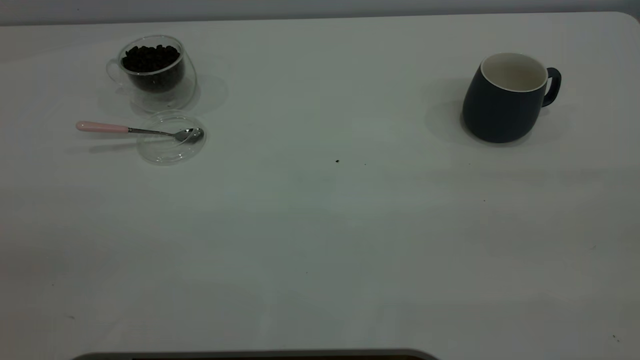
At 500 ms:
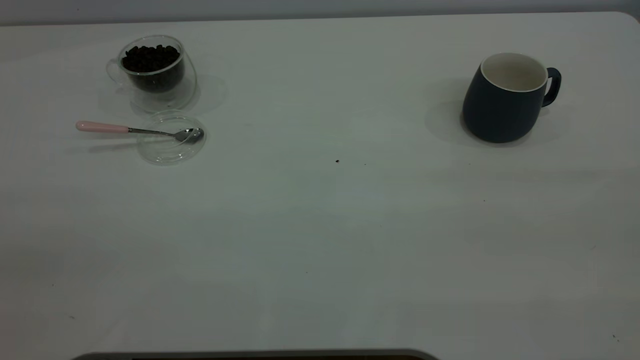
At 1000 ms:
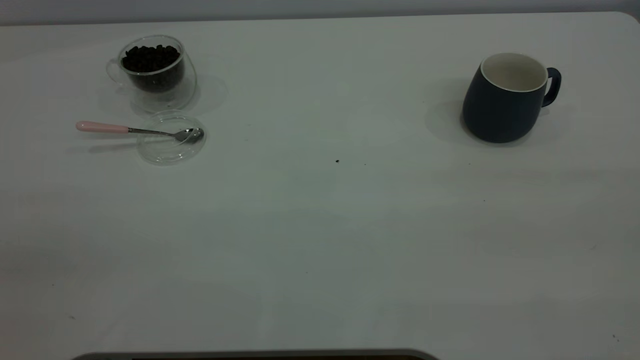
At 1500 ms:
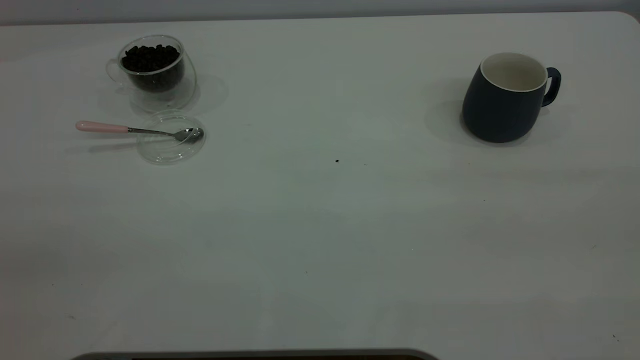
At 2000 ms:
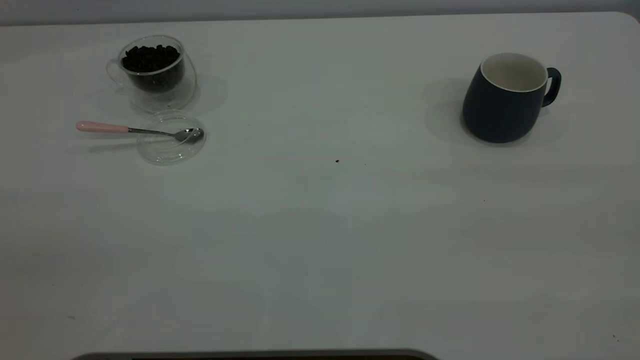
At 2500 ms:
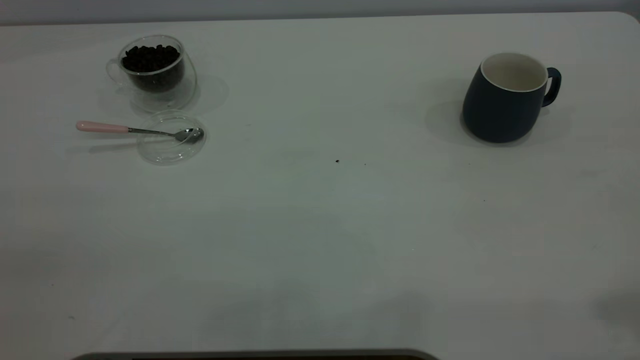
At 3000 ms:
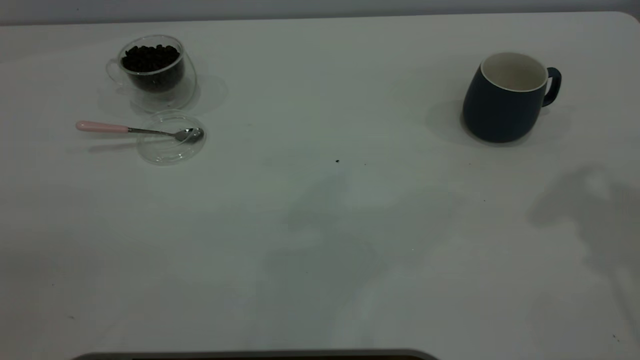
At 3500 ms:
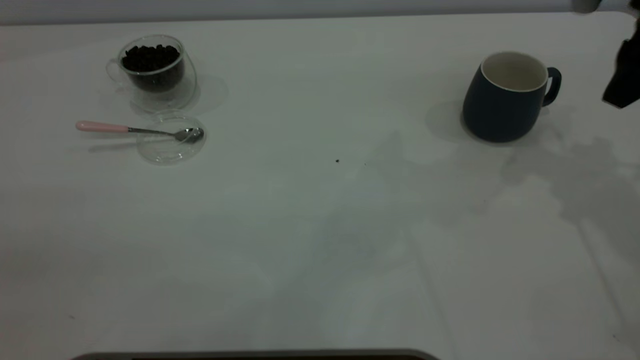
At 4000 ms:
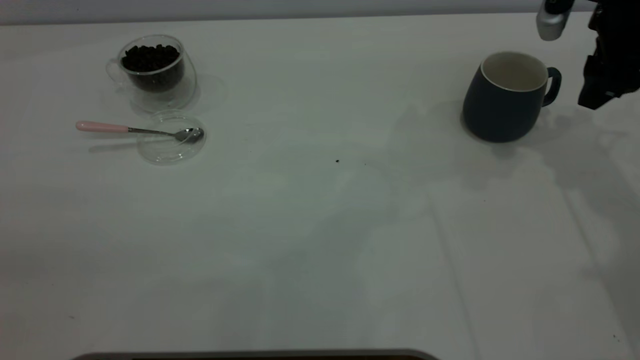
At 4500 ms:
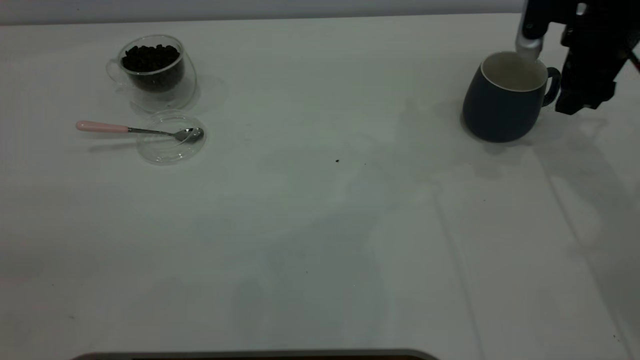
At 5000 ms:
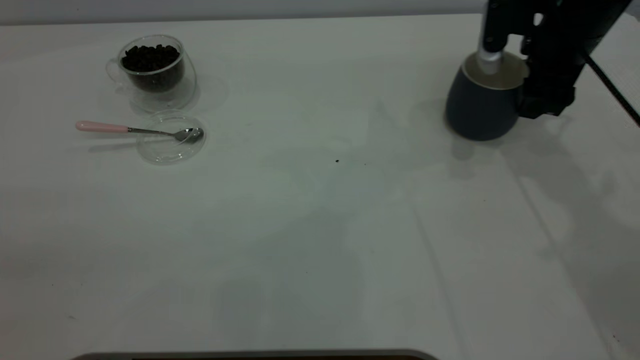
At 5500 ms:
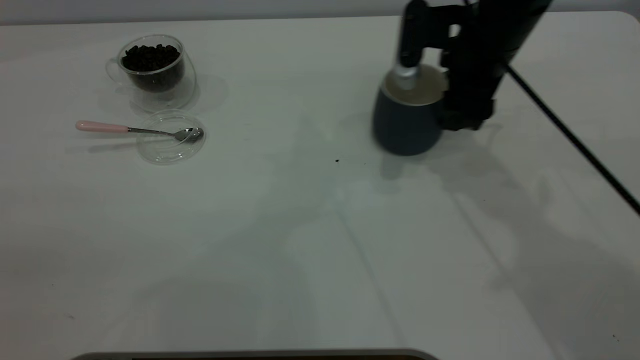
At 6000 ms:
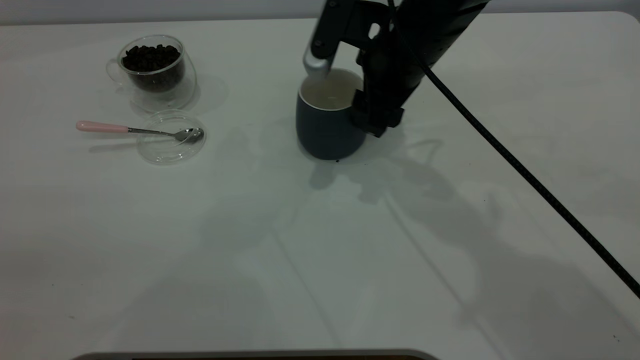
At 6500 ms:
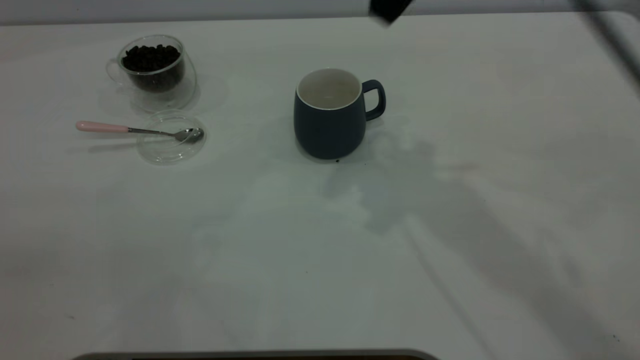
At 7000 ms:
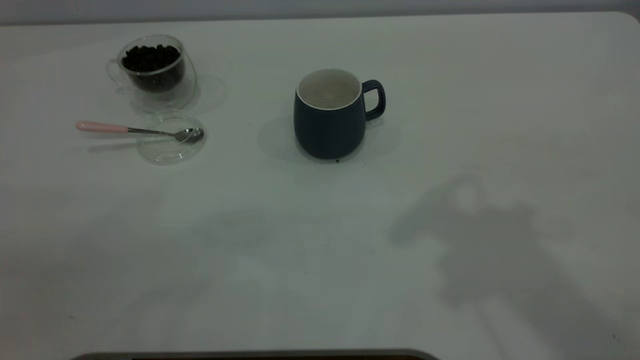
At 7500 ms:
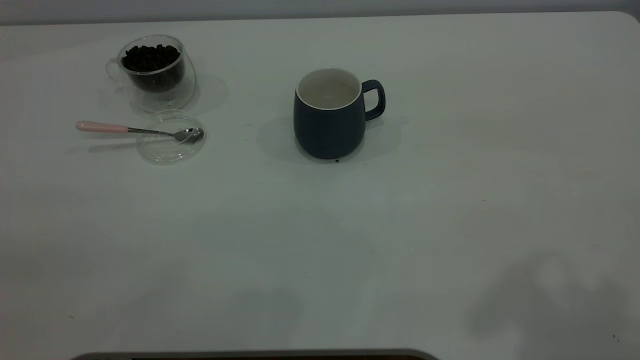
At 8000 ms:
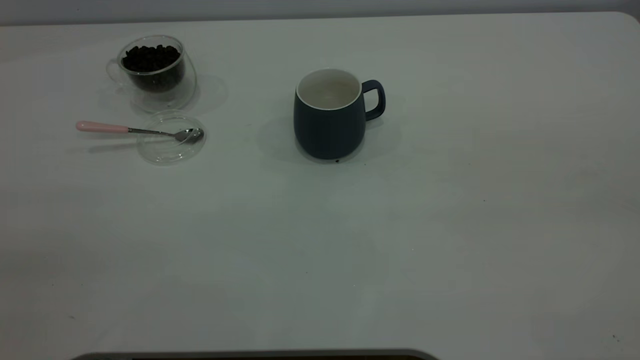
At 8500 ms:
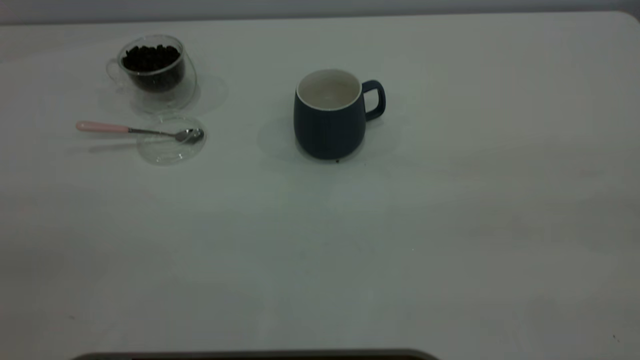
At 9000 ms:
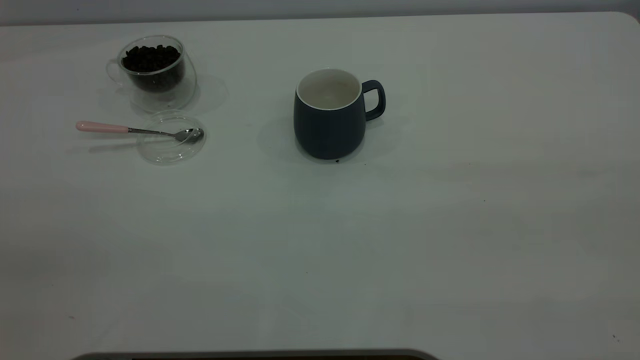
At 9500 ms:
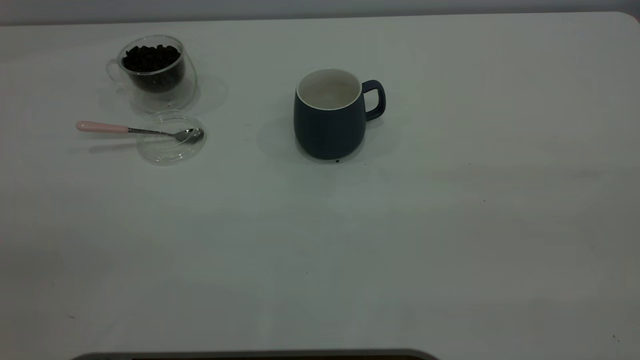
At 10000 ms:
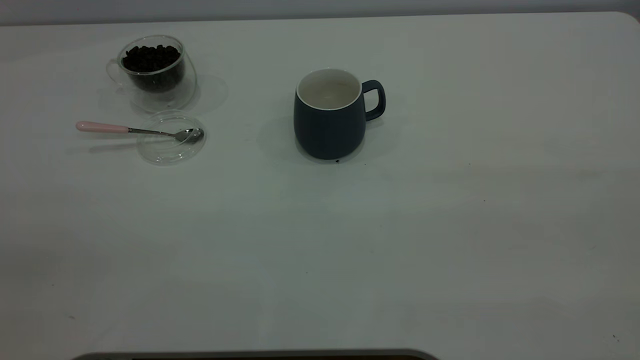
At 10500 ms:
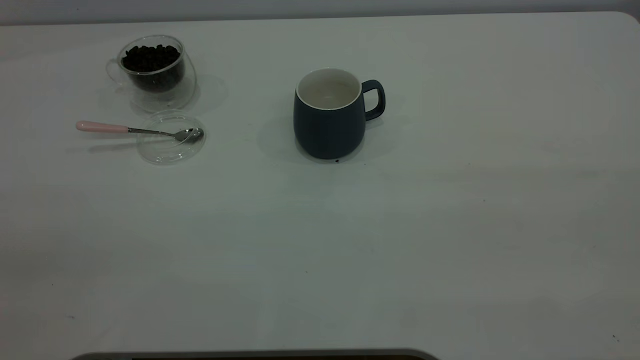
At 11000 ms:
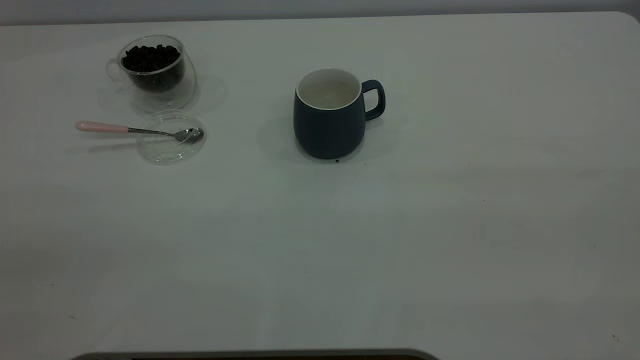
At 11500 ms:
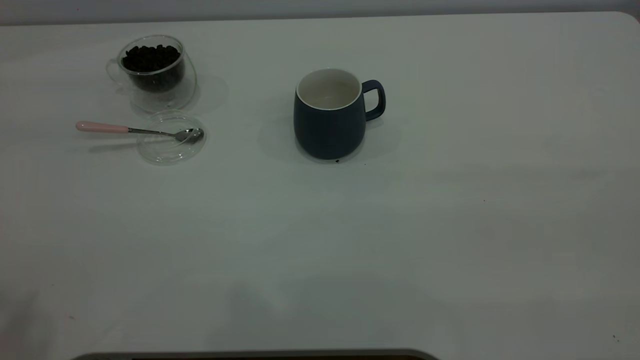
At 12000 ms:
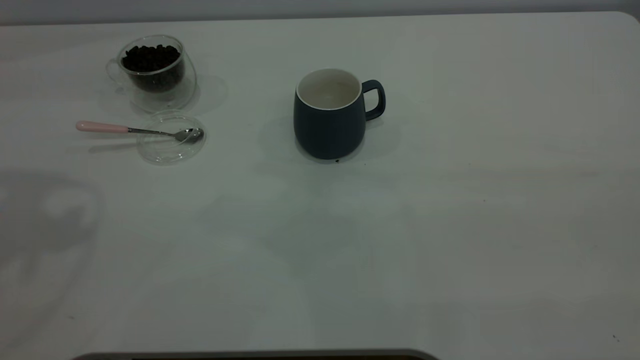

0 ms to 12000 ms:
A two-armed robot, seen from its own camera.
Task of the whole recording: the right gripper place the grey cup in the center of the table, the left gripper take the pink spoon from the cup lid and scoop out the coffee beans from the coffee cup and put them into the grey cup, the left gripper put the spoon back into the cup lid.
Step, 0 ms to 6000 ms: Move the cup to the center of view.
0 ms to 2000 ms: Neither gripper changes place.
2000 ms to 4000 ms: The right gripper shifts about 50 cm forward and downward.
4000 ms to 6000 ms: The right gripper moves to the left, roughly 20 cm.
6000 ms to 8000 ms: The right gripper is displaced backward, upward and to the right by roughly 50 cm.

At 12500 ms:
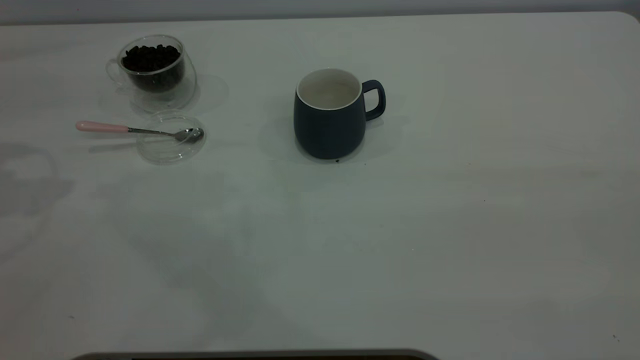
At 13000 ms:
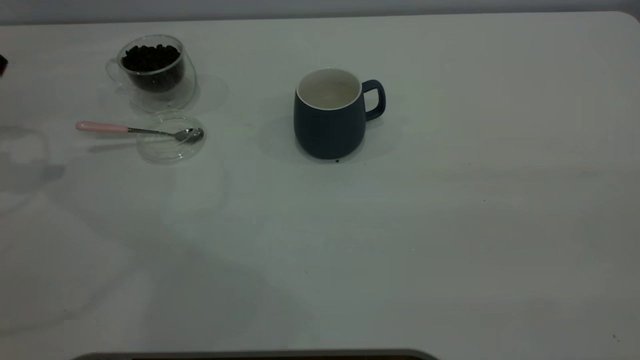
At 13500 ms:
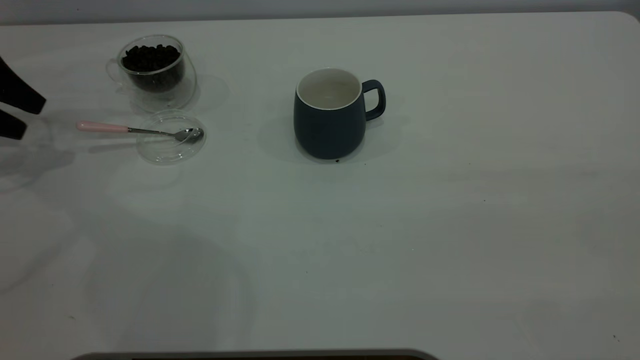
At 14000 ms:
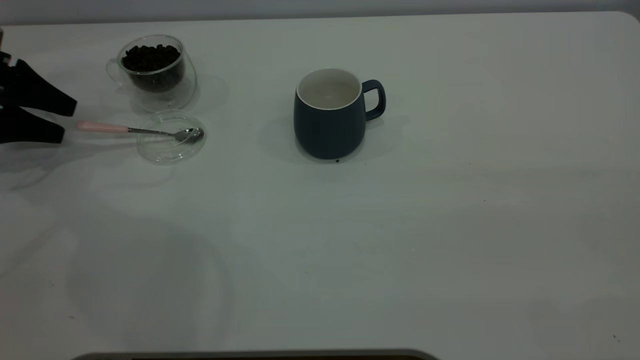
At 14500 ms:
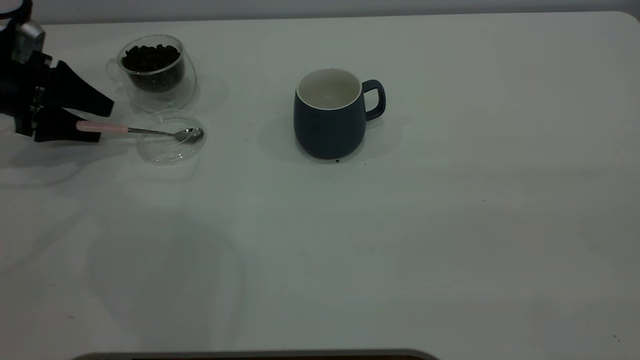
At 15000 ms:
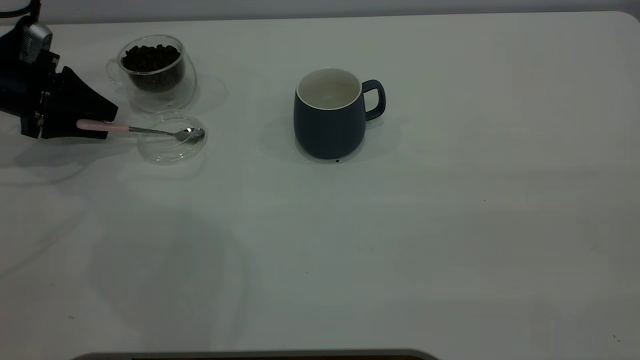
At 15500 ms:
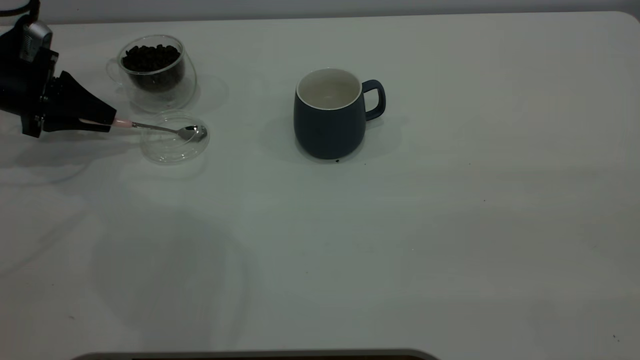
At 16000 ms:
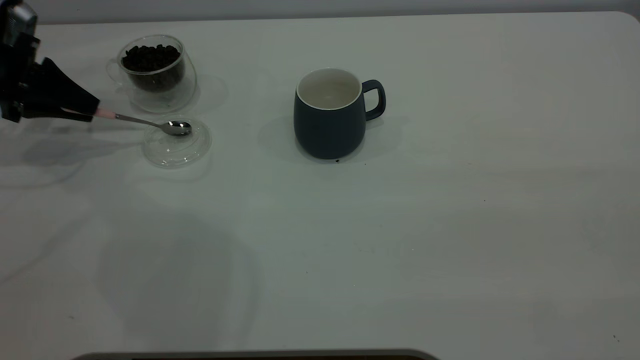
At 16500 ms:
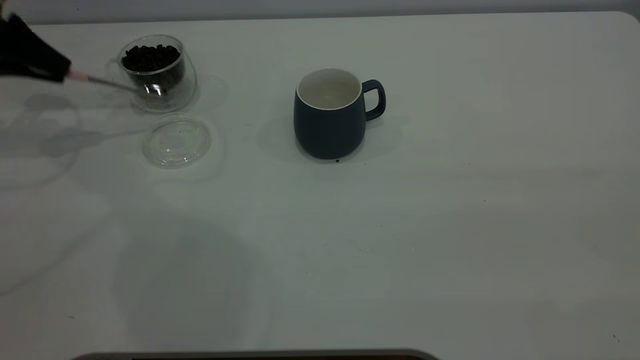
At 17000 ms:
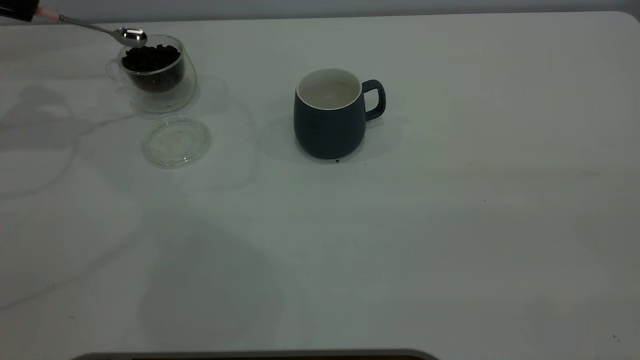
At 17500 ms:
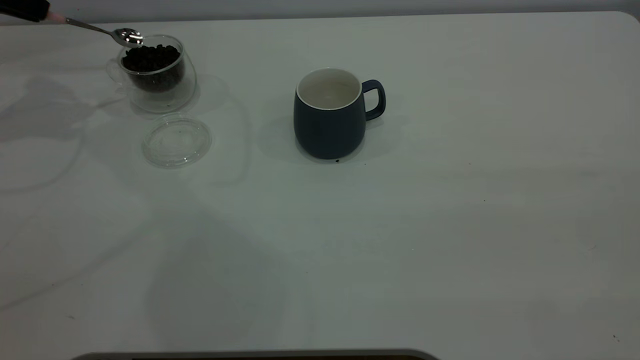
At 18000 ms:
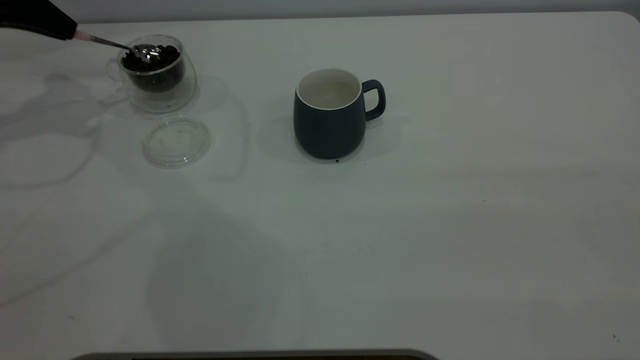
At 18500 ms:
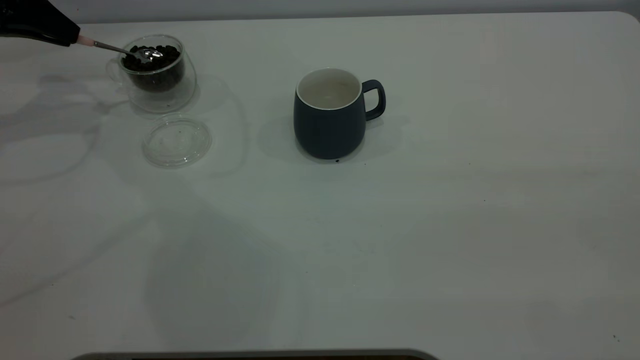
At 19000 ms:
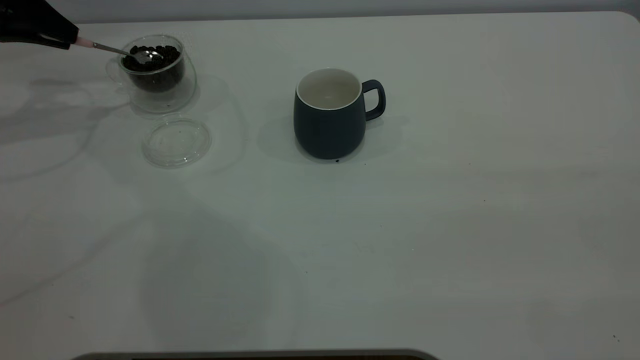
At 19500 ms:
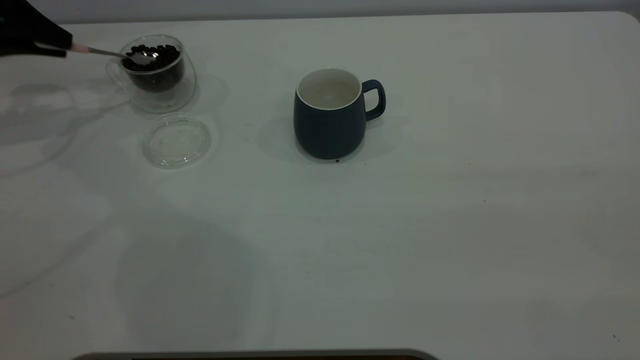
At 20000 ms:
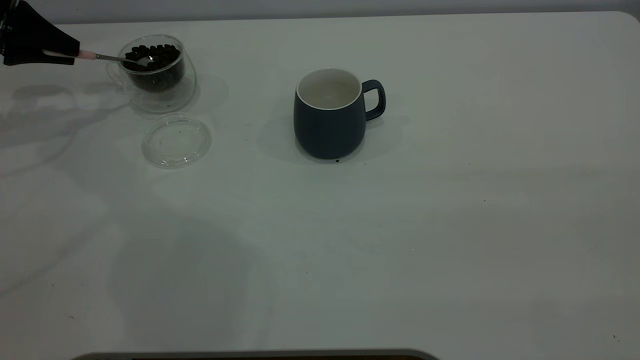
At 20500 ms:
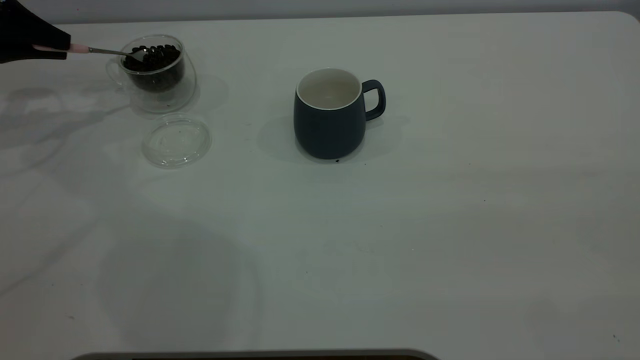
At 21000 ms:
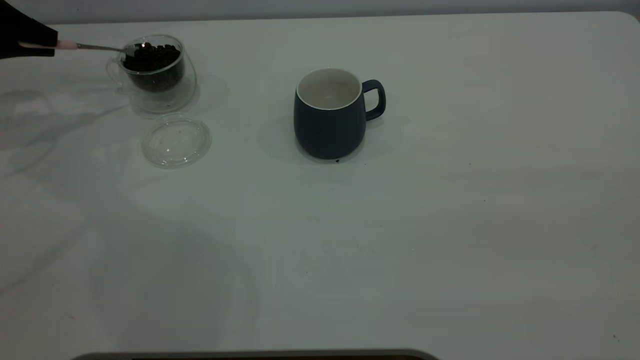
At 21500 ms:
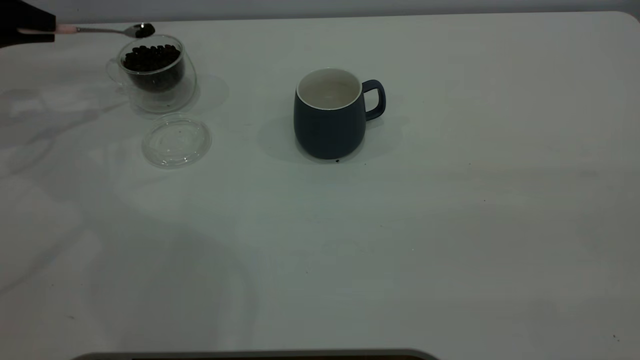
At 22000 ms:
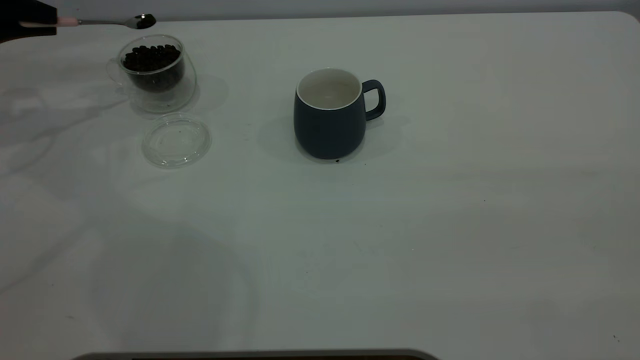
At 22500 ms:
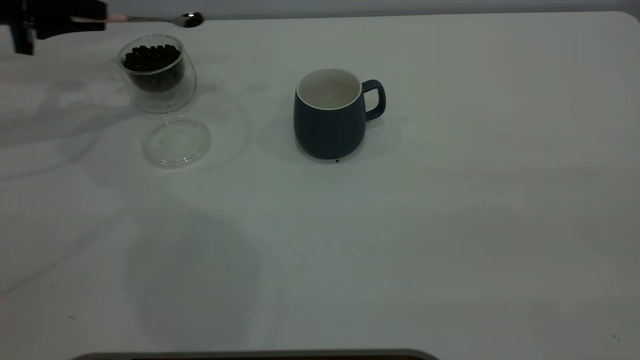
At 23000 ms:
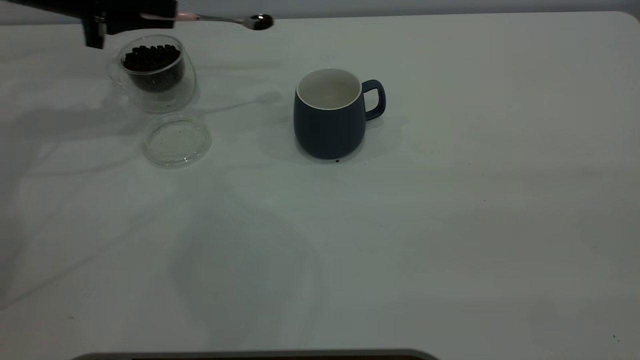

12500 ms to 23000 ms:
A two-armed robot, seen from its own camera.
Task of the whole recording: the right gripper place the grey cup in the center of the table, the left gripper take the pink spoon from the cup lid and scoop out the coffee beans from the coffee cup and put them into the grey cup, the left gripper put the spoon back into the cup lid.
Step, 12500 ms to 16000 ms: Pick up the spoon.
12500 ms to 14500 ms: The left gripper moves downward and forward, about 20 cm.
14500 ms to 16500 ms: The left gripper heads upward, covering approximately 10 cm, and closes up.
19000 ms to 21000 ms: The grippers make only small movements.
21000 ms to 23000 ms: The left gripper is displaced to the right by some 15 cm.
